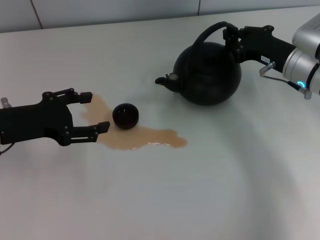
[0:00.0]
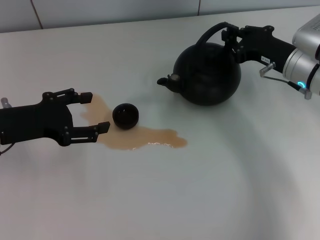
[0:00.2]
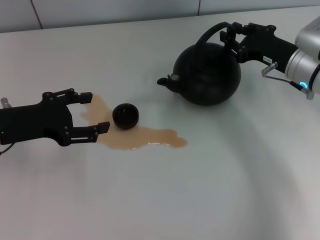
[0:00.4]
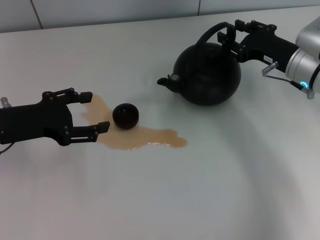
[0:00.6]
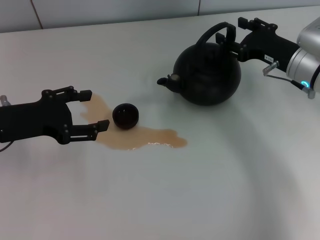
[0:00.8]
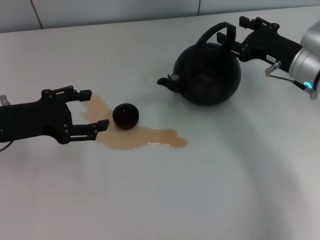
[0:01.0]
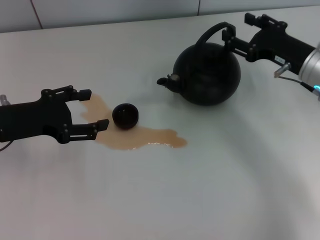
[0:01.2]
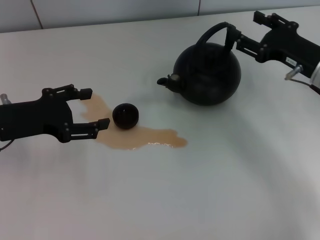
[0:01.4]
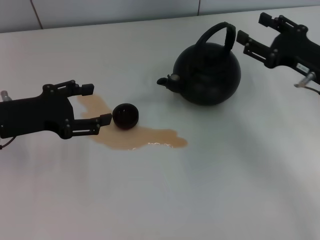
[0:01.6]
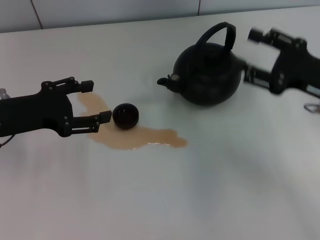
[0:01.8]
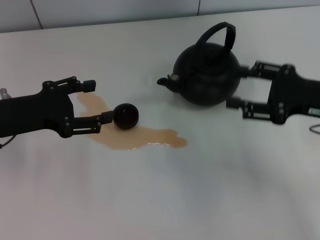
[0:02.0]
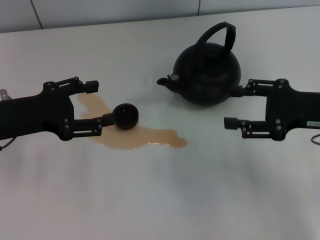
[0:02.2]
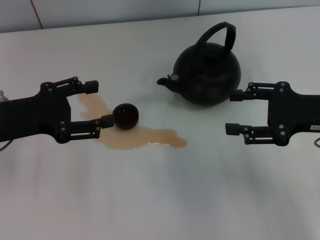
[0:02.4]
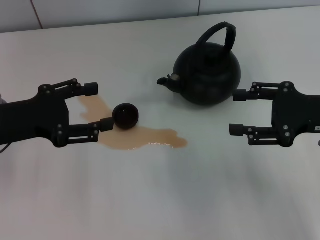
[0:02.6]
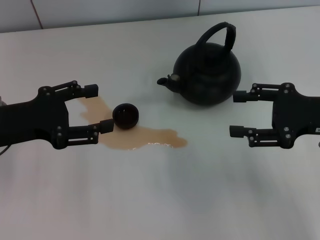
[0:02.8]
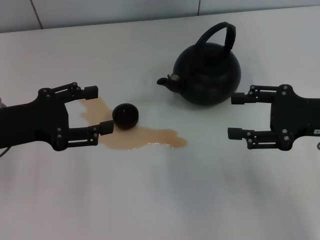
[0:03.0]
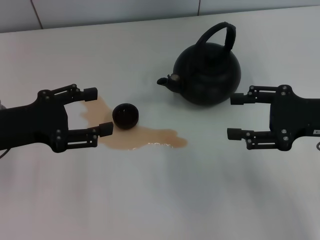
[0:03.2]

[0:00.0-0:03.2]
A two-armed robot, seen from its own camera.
Task of the whole recording: Grasp the handle of the teapot with one hand and pour tea into the teacup.
Step, 0:00.0 to 0:01.4: Put down the teapot with the right gripper.
0:00.0 to 0:01.6: The right gripper moves backward, some 5 cm, and opens its fingers.
0:01.6 to 0:03.2: The right gripper moves some 5 cm.
